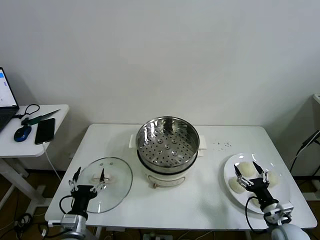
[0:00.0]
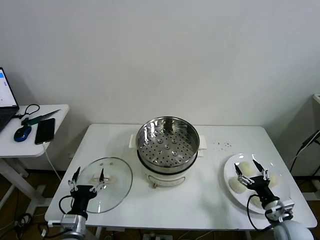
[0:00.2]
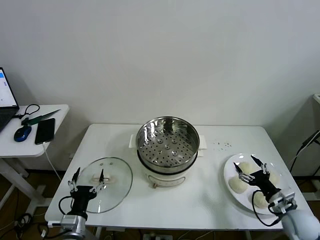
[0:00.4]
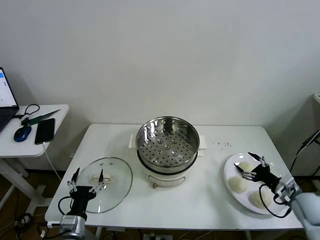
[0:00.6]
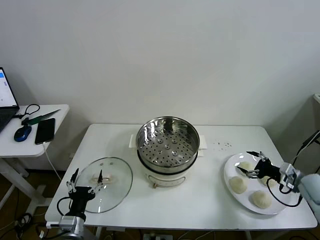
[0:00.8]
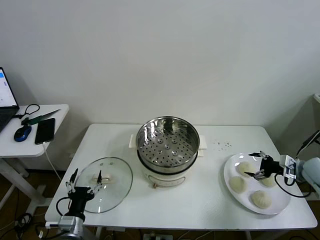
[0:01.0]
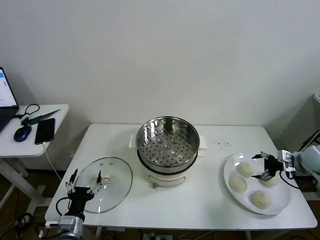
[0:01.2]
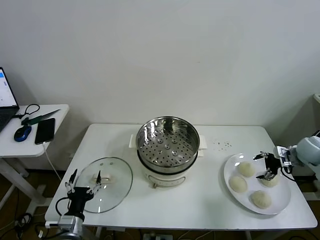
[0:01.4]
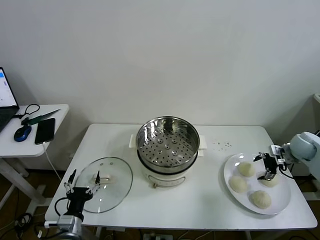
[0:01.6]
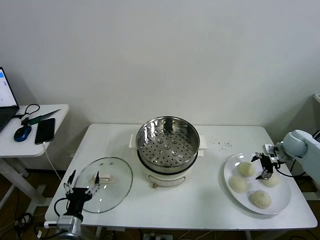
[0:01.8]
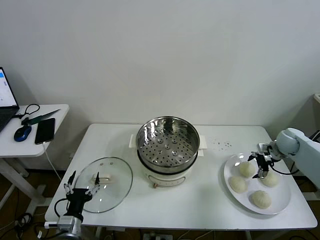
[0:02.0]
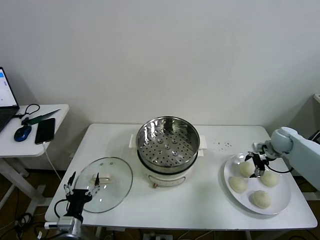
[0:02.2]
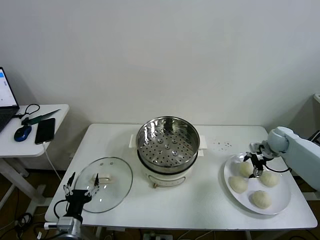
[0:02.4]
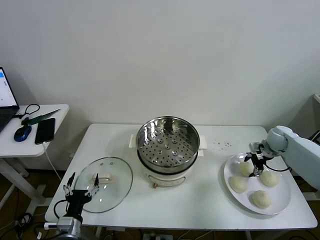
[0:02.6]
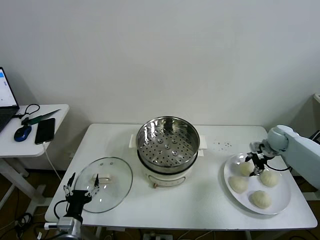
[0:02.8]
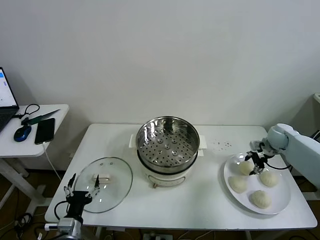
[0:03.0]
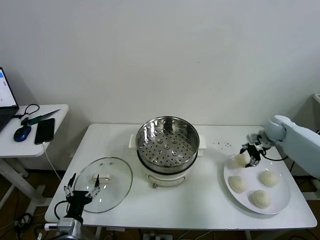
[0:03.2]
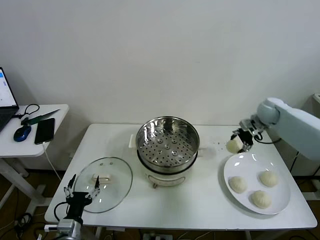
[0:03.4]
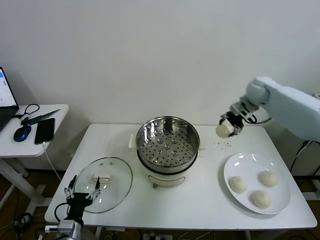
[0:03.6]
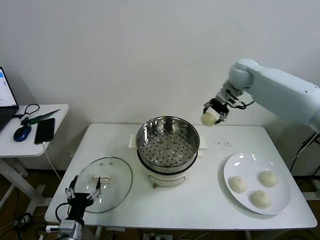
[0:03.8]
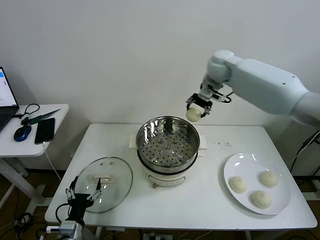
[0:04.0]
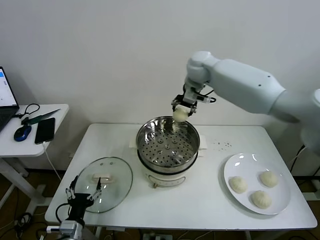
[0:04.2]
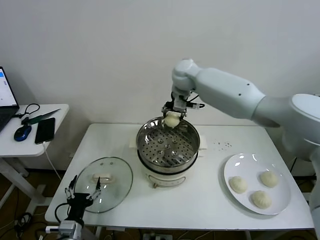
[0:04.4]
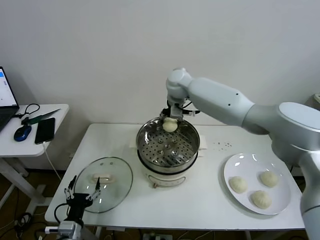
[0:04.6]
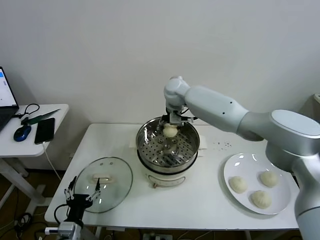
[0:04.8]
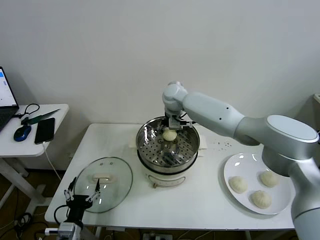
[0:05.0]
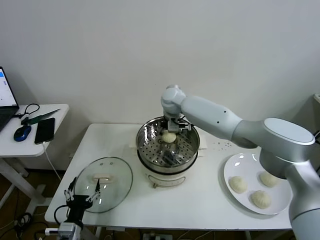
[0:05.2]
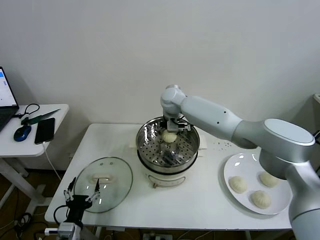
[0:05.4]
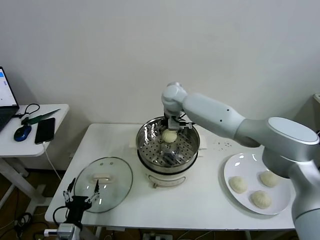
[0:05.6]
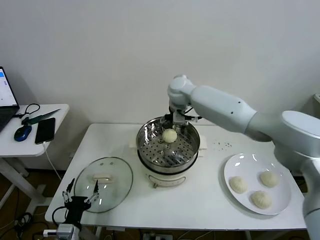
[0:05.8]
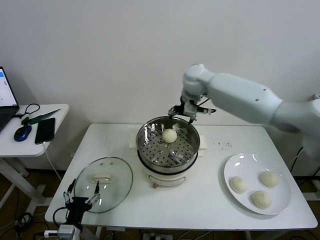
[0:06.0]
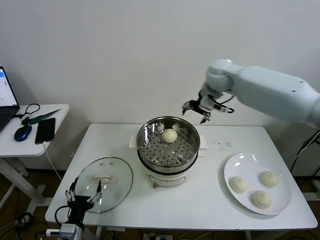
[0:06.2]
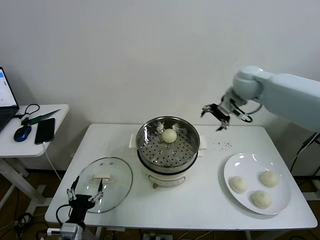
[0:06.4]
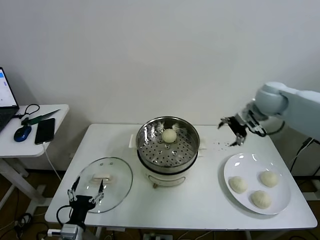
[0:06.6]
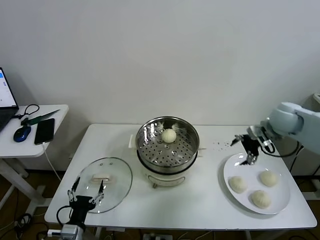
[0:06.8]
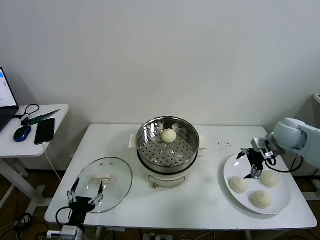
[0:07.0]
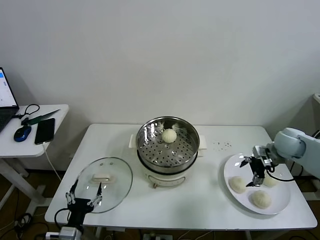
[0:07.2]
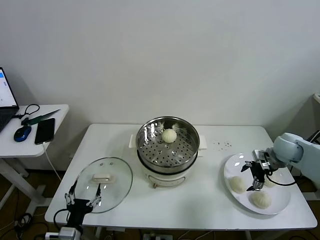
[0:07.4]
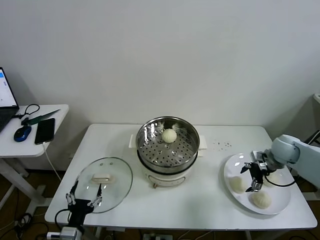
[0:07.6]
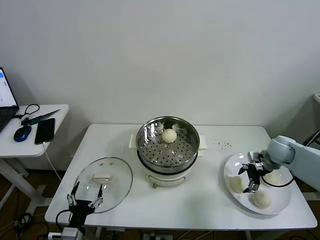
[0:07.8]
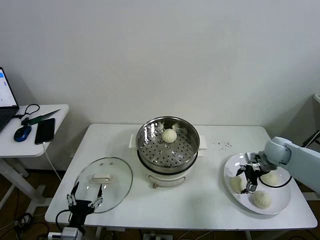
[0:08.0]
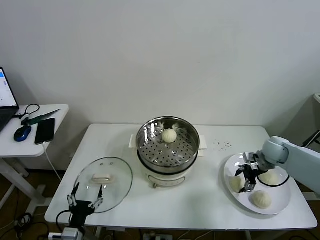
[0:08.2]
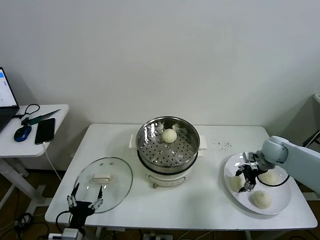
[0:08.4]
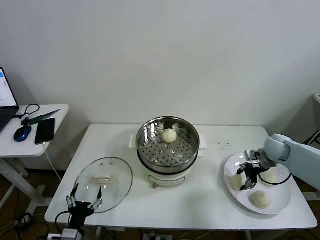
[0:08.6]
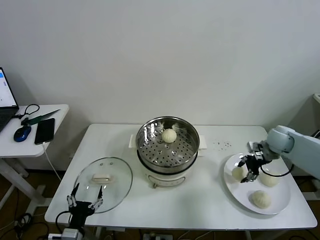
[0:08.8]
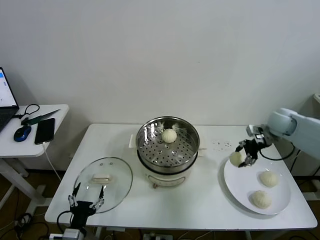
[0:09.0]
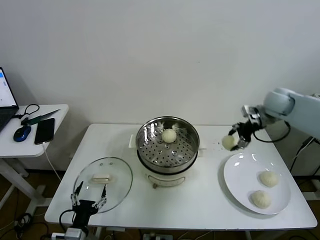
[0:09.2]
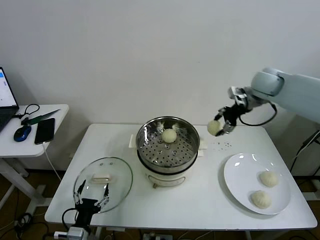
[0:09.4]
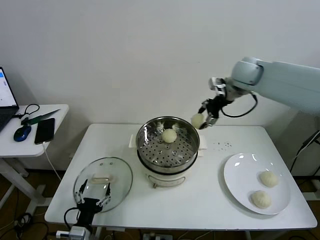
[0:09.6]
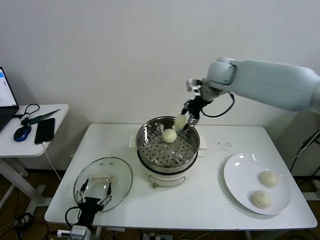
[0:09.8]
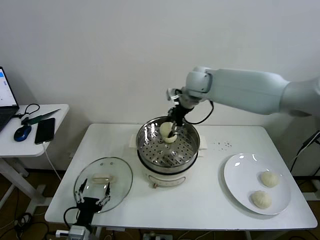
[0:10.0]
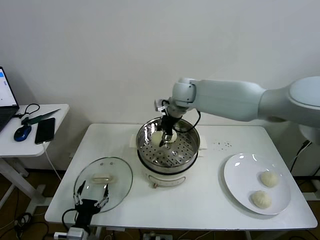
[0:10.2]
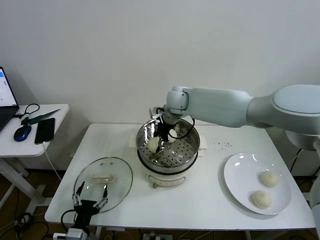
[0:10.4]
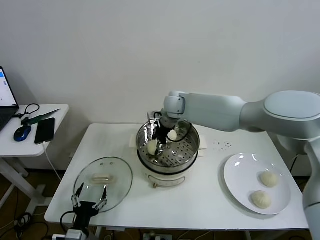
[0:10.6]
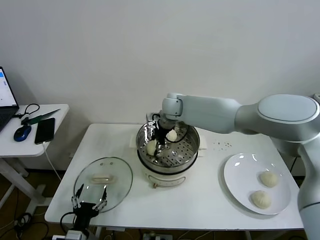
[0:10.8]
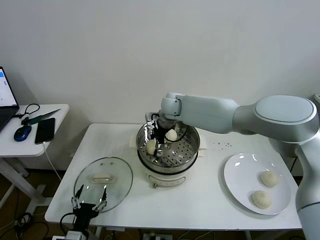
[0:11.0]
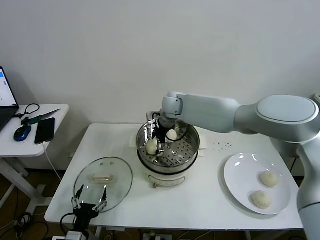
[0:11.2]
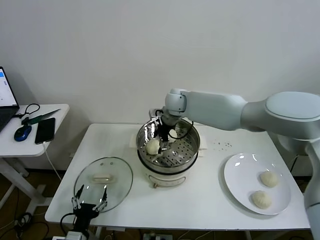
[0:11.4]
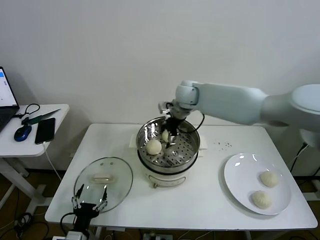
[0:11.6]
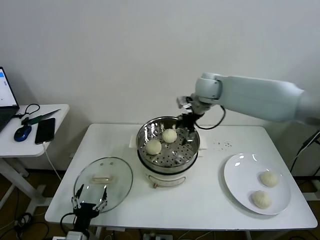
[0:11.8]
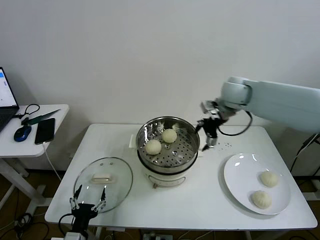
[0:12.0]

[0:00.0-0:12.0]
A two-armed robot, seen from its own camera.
Task of the whole recording: take steamed baozi put them in steamer then cover it.
Step, 0:00.0 to 0:02.6: Grasp the baozi in the plate with right gripper.
Step, 0:02.8 to 0:05.4: Place the baozi on the steamer with right gripper.
Step, 0:05.6 to 0:08.4: Grasp the baozi in the plate with right gripper.
Step, 0:08.6 to 0:11.2: Place the baozi on the steamer with right gripper.
0:01.6 to 0:03.0: The right gripper is displaced forward and to the left by about 10 cm, and closes its fingers.
0:03.0 to 0:04.4: The right gripper travels to the left and upward by approximately 40 cm.
0:04.4 to 0:06.0: The right gripper heads to the right, covering about 10 cm, and opens its fingers.
0:06.0 to 0:07.6: The right gripper heads to the right, downward and backward, covering some 40 cm.
0:07.6 to 0:09.0: The right gripper is displaced upward and forward by about 15 cm, and closes.
0:09.0 to 0:10.4: The right gripper goes about 35 cm to the left.
0:10.4 to 0:12.0: The right gripper shifts approximately 20 cm to the right, and opens its fingers.

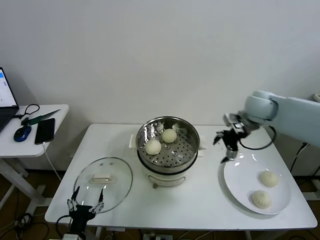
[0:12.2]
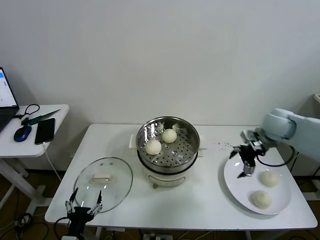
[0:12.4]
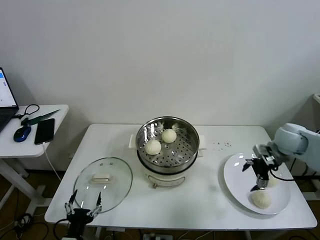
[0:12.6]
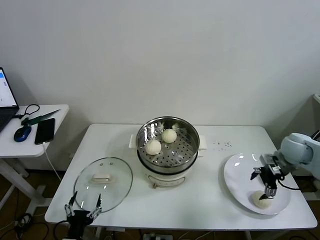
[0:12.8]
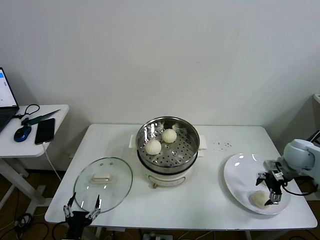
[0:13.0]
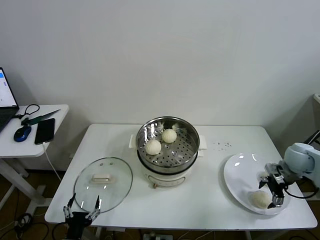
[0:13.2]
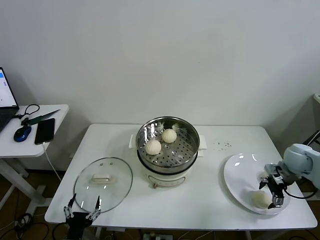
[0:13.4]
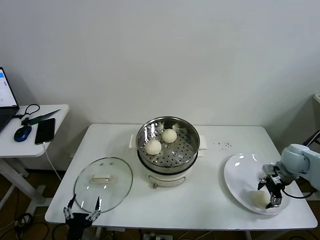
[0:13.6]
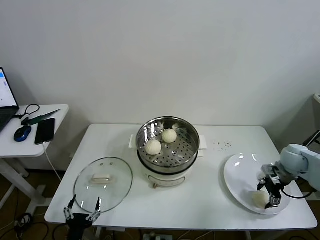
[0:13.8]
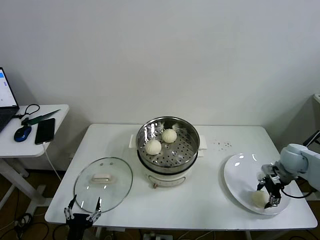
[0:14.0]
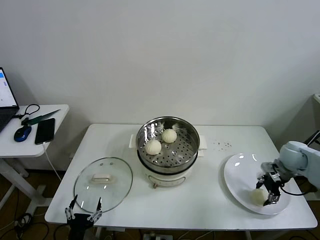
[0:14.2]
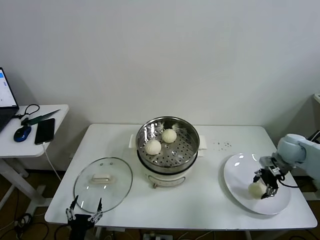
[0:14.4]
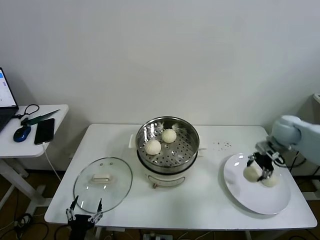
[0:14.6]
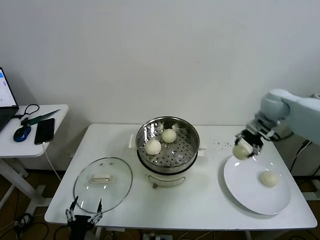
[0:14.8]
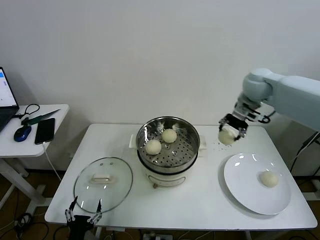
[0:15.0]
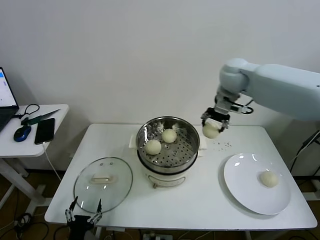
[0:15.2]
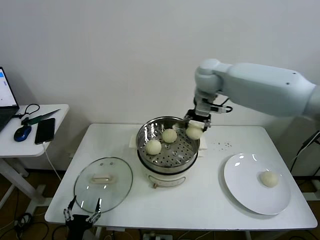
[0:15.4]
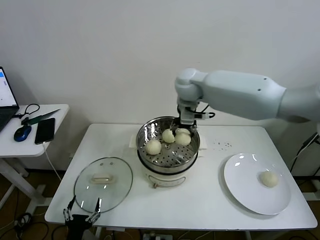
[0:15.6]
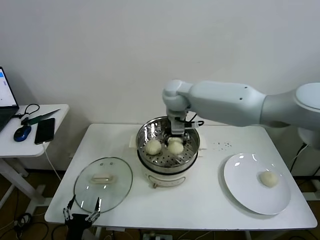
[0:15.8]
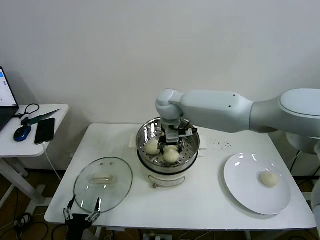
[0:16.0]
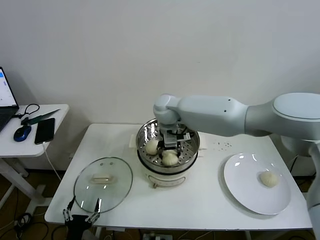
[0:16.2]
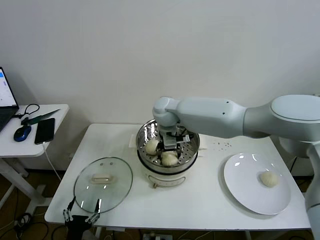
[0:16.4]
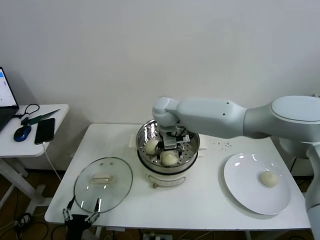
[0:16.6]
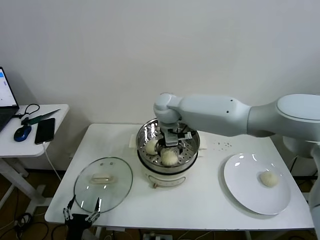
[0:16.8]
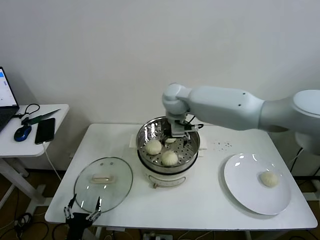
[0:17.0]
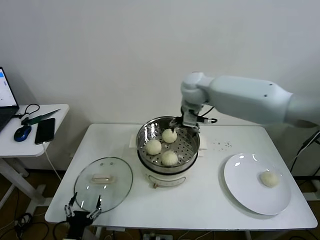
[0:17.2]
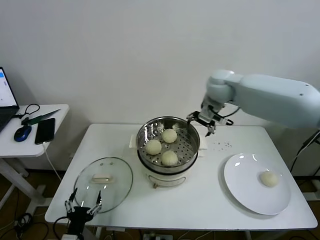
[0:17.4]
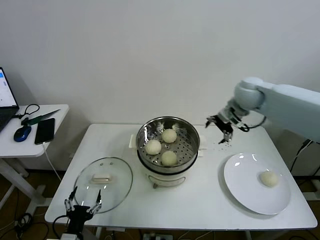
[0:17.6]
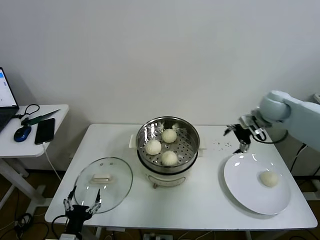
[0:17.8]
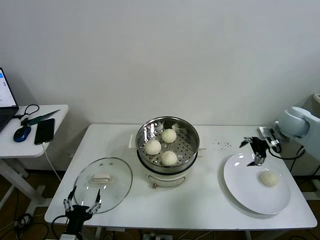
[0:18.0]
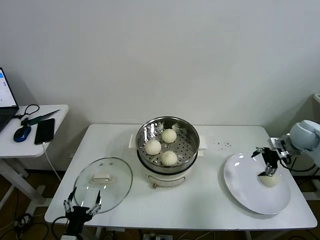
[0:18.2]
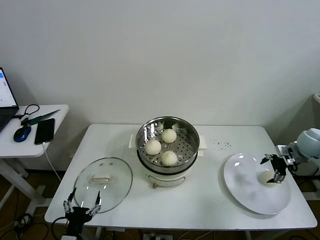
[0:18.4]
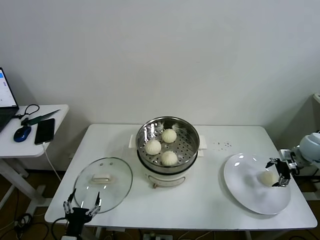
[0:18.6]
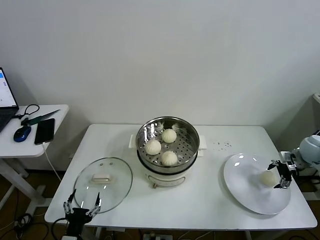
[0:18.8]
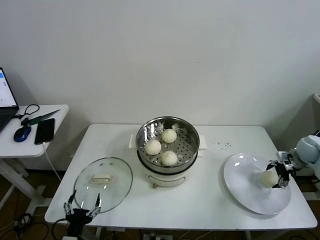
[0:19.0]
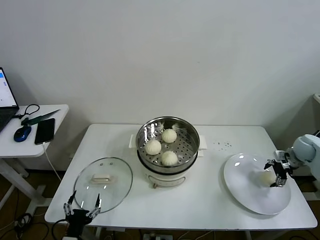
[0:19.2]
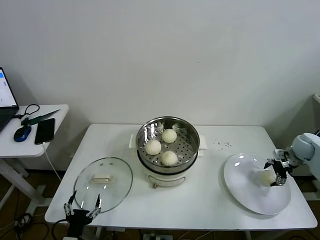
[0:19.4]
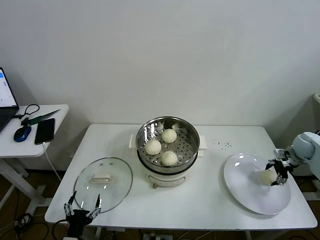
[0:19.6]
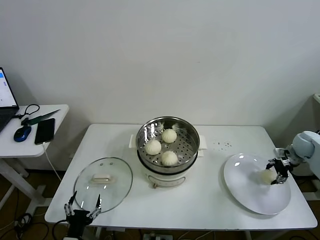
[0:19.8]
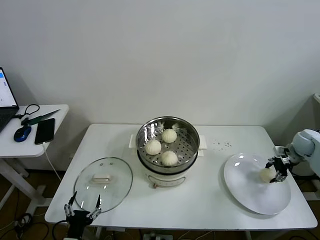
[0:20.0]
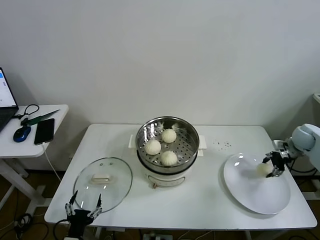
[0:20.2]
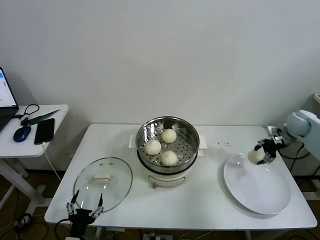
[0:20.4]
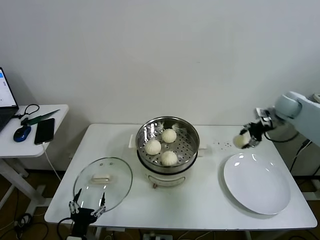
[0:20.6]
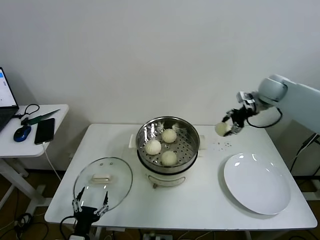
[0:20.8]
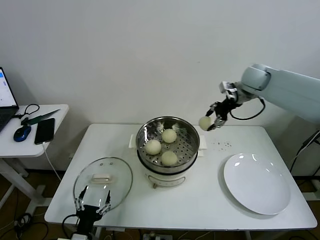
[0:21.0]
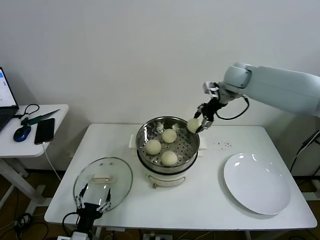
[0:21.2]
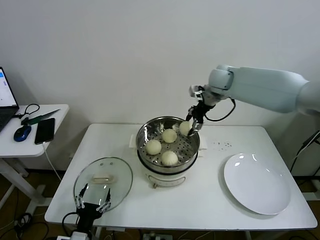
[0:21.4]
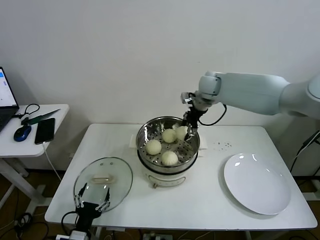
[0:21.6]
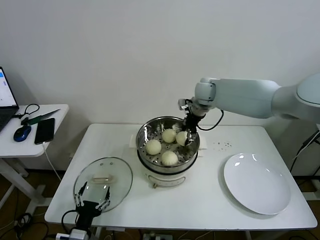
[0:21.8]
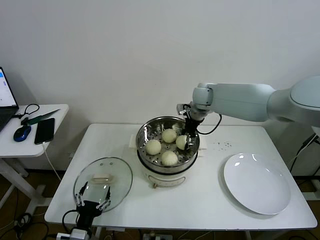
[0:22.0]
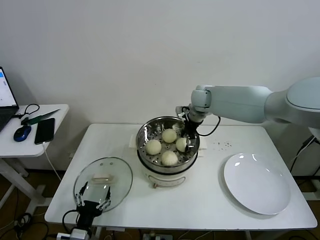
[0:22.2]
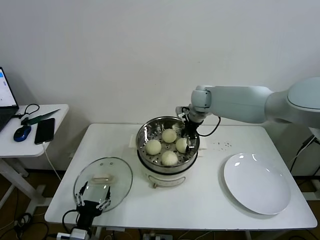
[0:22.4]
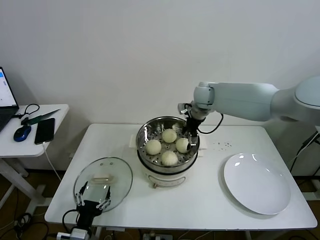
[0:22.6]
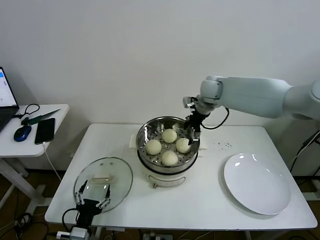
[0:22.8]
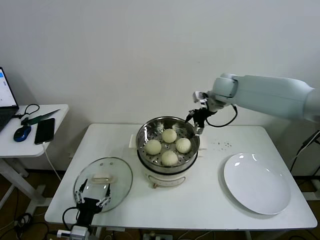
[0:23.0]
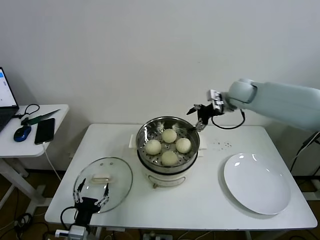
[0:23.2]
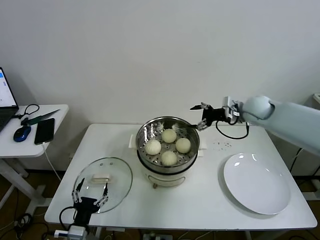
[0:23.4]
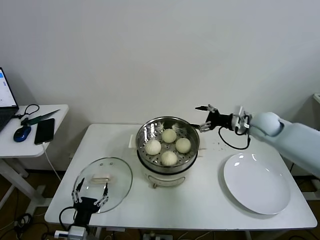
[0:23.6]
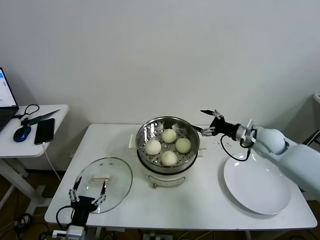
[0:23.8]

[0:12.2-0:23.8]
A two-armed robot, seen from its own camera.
Task of the whole recording: take steamed baozi put them in steamer then cover it.
Step, 0:12.2 to 0:14.0: Grasp the baozi in the plate with right gripper.
Step, 0:14.2 to 0:16.6: Place the baozi on the steamer with right gripper.
Step, 0:16.8 to 0:19.6: Grasp the baozi in the plate with right gripper.
Step, 0:20.0 to 0:22.4: Place the baozi on the steamer with right gripper.
0:12.2 to 0:13.6: The right gripper heads downward, to the right and backward, covering some 20 cm.
0:13.6 to 0:15.0: The right gripper moves upward, to the left and forward, about 35 cm, and closes its fingers.
0:15.0 to 0:16.6: The right gripper heads to the left, covering roughly 25 cm, and opens its fingers.
0:16.6 to 0:18.0: The right gripper heads to the right, covering approximately 40 cm.
0:18.0 to 0:19.4: The right gripper shifts approximately 15 cm downward and to the right.
0:19.4 to 0:21.0: The right gripper travels to the left, upward and forward by approximately 35 cm, and closes.
0:21.0 to 0:22.4: The right gripper travels to the left and downward by approximately 15 cm, and opens.
0:22.4 to 0:23.8: The right gripper is displaced to the right, backward and downward by approximately 25 cm.
